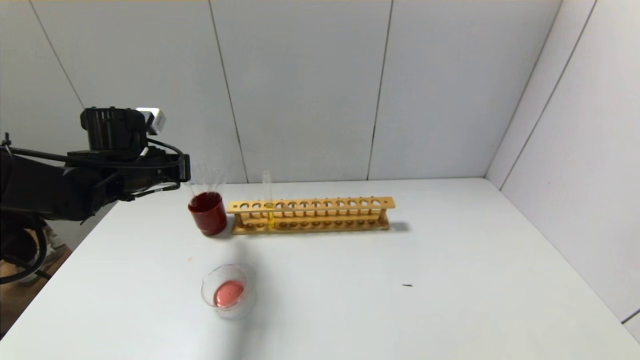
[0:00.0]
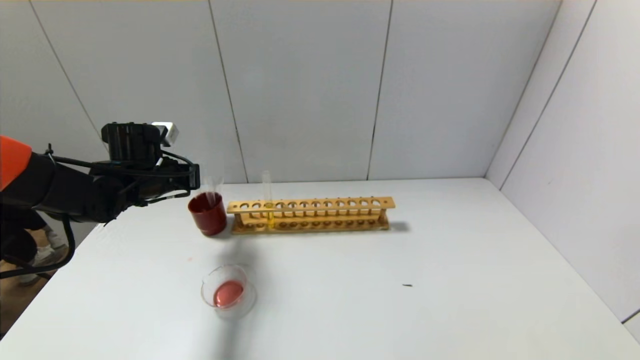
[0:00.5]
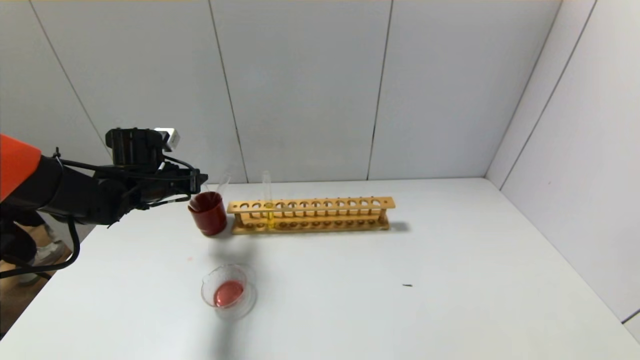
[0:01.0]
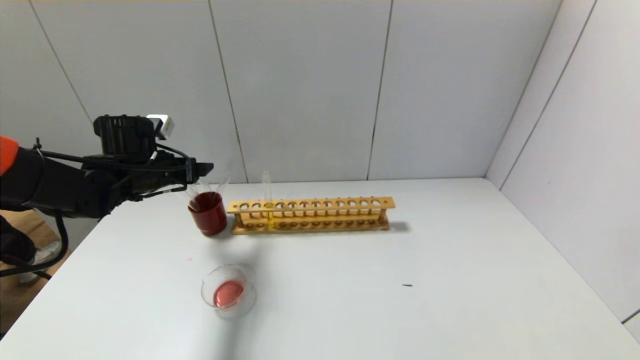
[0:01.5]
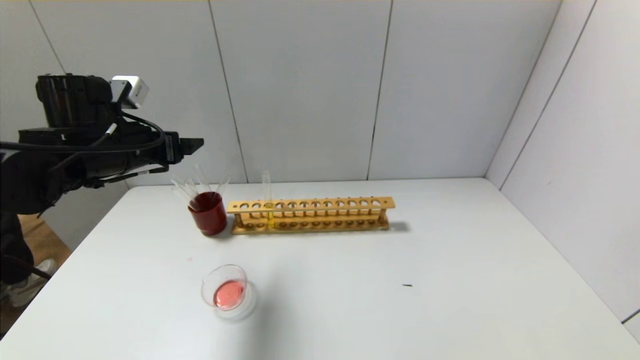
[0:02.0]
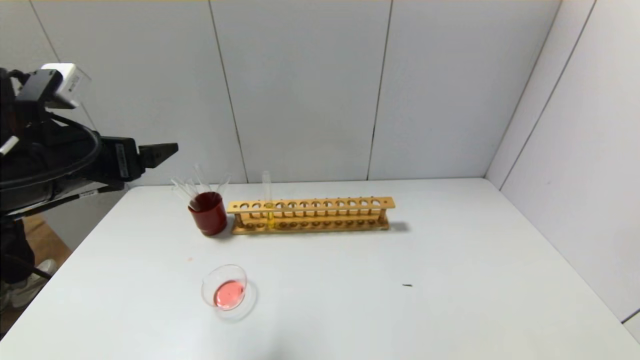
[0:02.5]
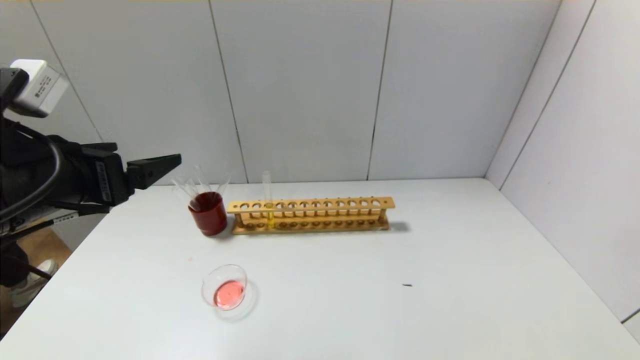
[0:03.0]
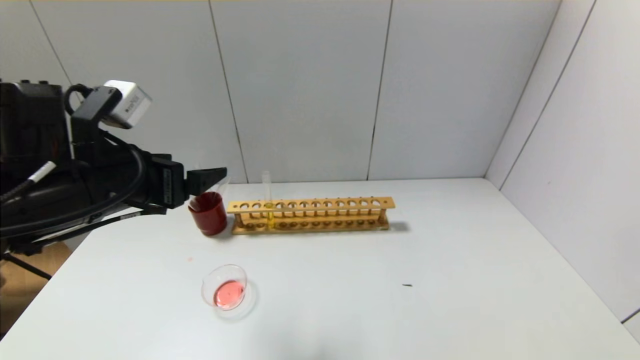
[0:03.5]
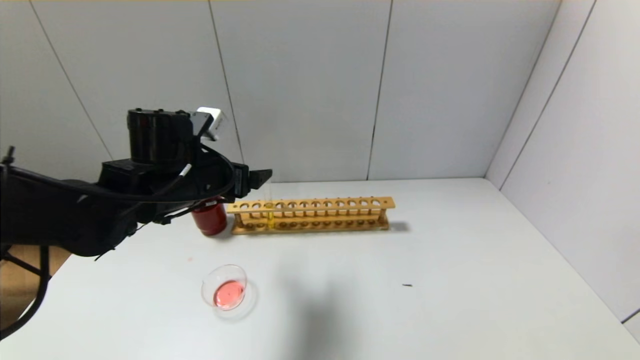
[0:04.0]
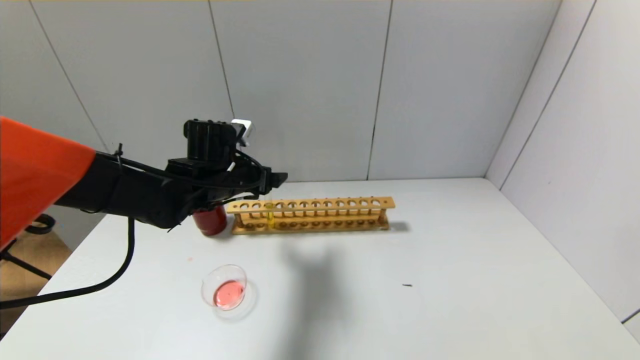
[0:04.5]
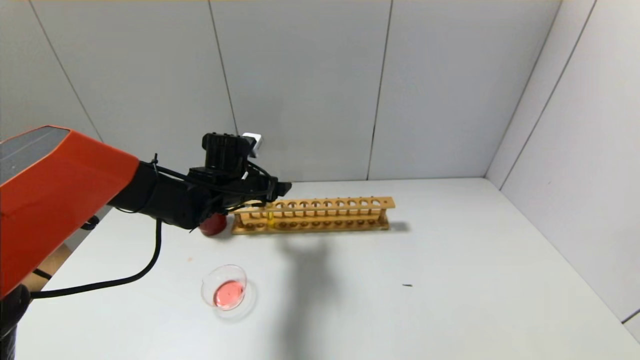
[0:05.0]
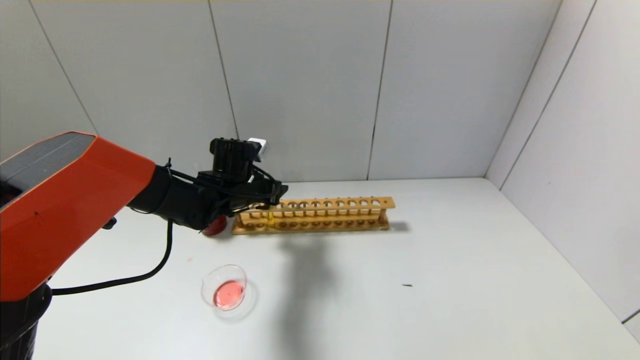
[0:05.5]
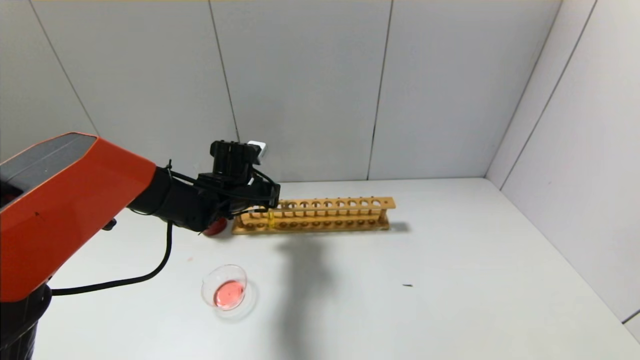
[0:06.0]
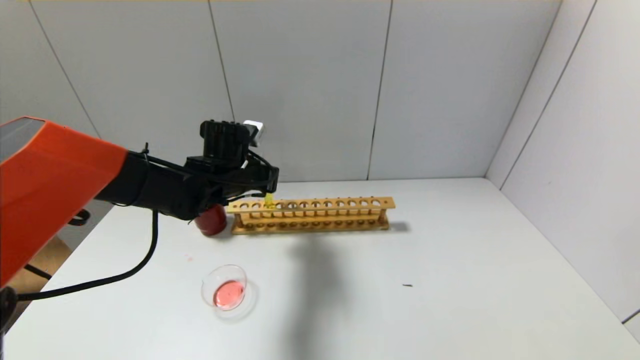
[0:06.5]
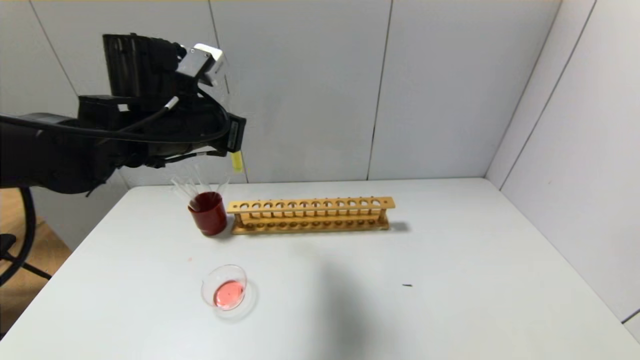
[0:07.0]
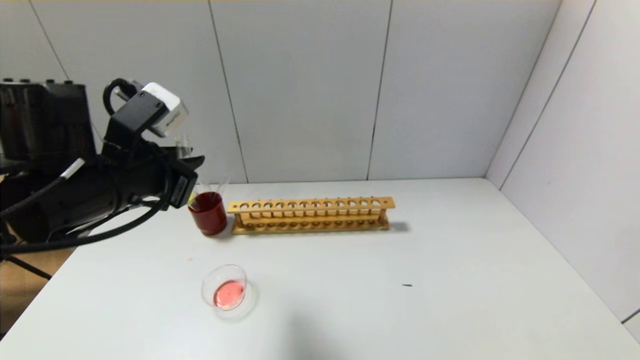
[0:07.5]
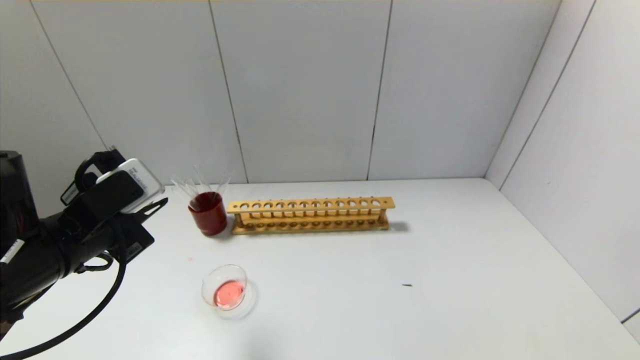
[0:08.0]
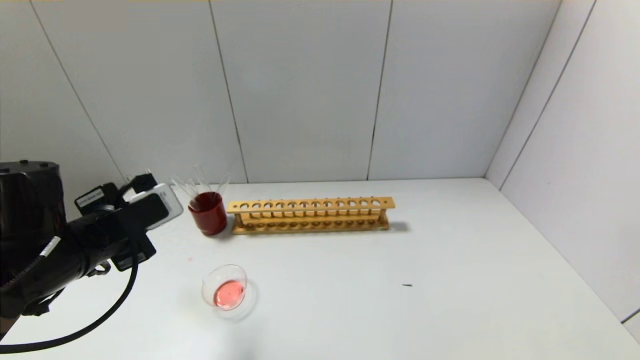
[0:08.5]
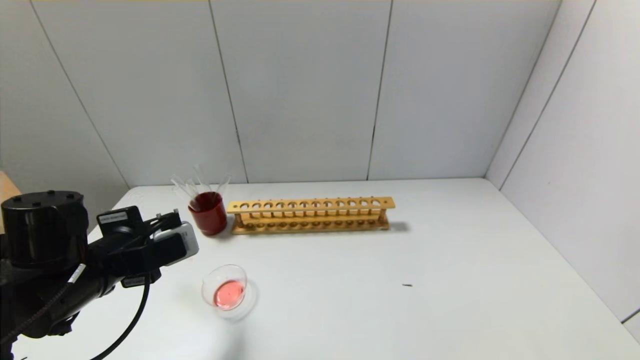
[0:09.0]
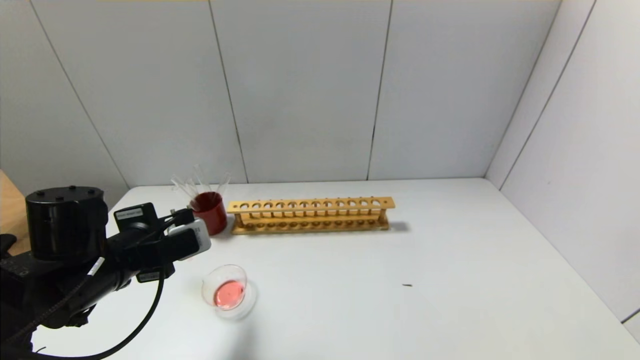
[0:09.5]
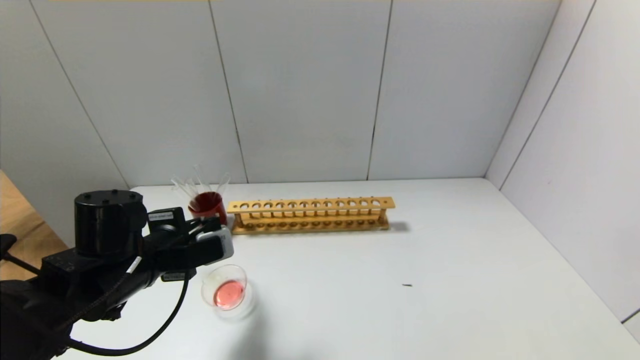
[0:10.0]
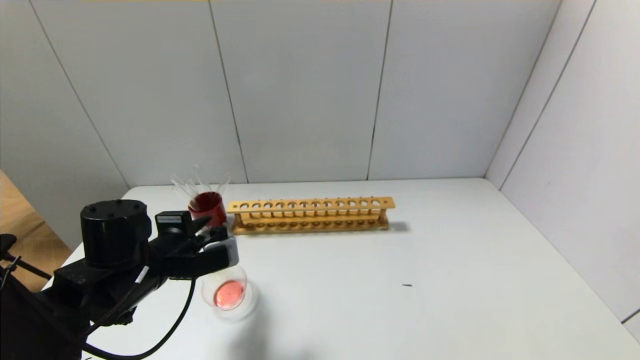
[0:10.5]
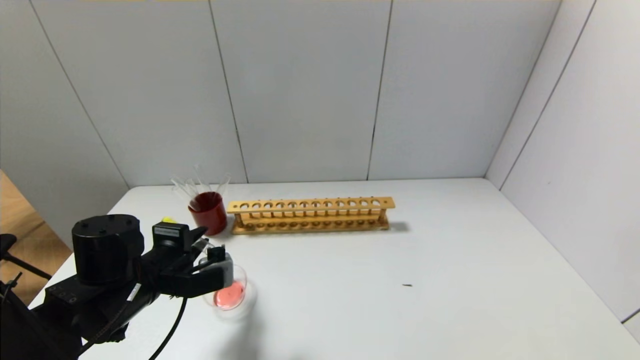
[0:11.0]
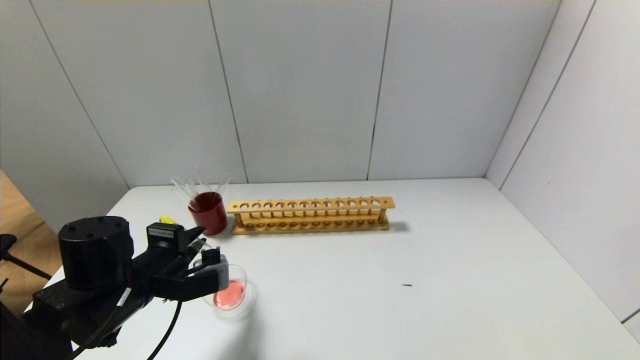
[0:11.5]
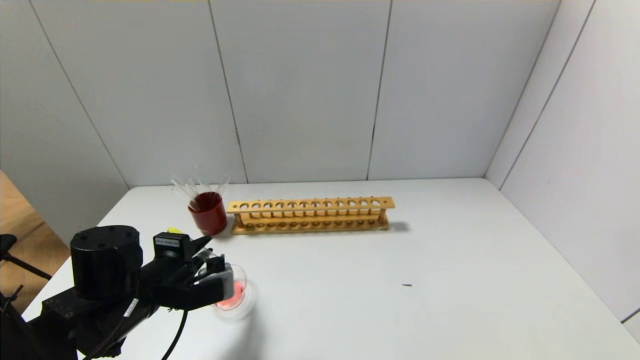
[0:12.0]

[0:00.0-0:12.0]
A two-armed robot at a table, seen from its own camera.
Step, 0:01.0 to 0:05.5: Grasp the yellow reagent with the left gripper.
0:00.0 to 0:02.0: The left gripper heads upward, covering roughly 5 cm, and opens up.
0:02.0 to 0:04.0: The left gripper goes some 10 cm to the right, and moves some 15 cm backward and comes back.
0:04.0 to 0:06.0: The left gripper moves forward and downward, roughly 10 cm, and closes its fingers.
0:06.0 to 0:08.0: The left gripper travels backward and to the left by about 25 cm.
0:08.0 to 0:10.0: The left gripper is displaced downward by some 5 cm.
0:10.0 to 0:12.0: The grippers make only small movements.

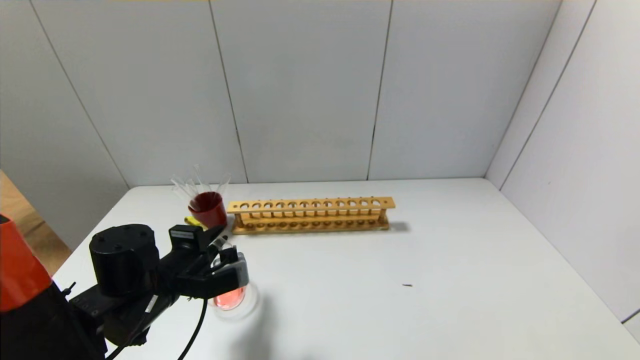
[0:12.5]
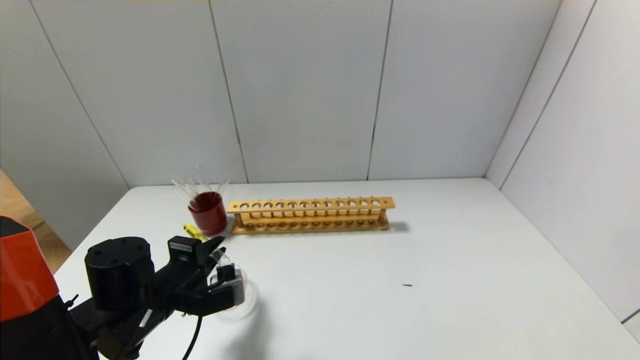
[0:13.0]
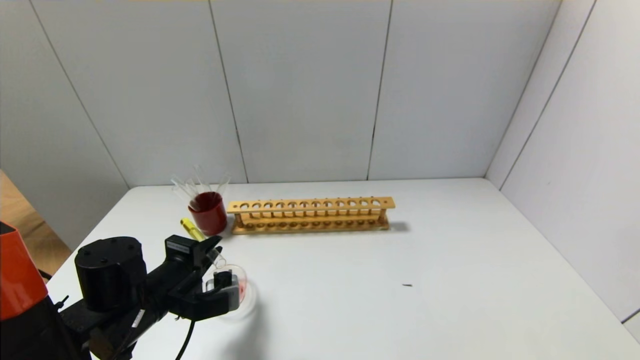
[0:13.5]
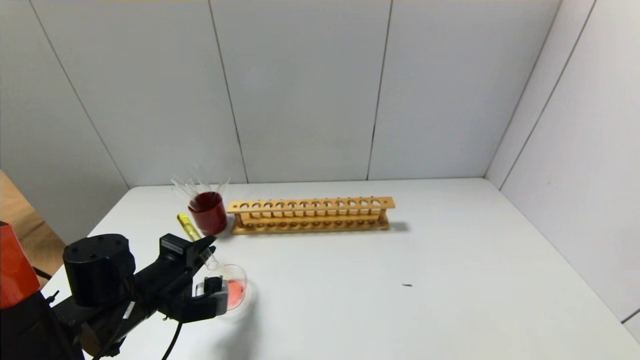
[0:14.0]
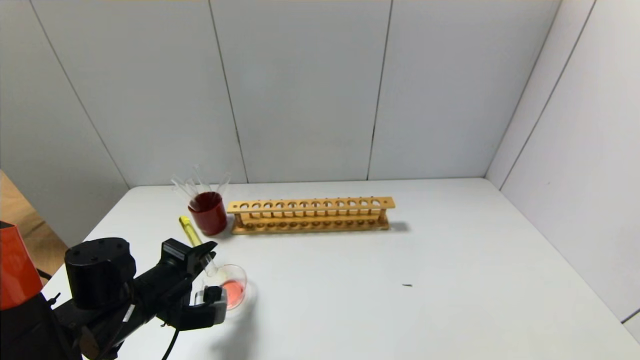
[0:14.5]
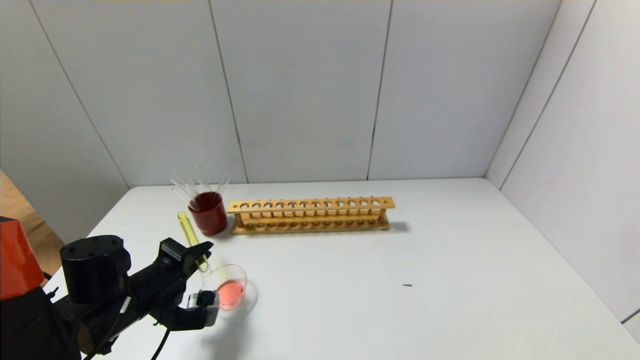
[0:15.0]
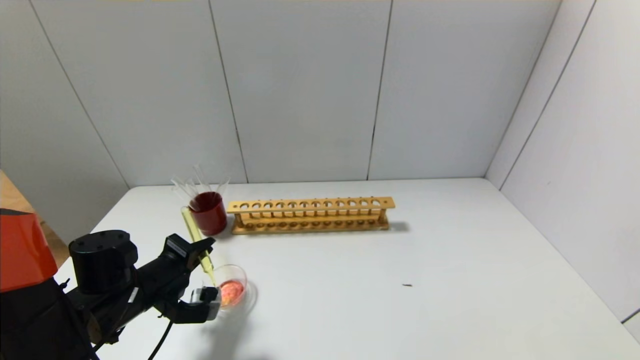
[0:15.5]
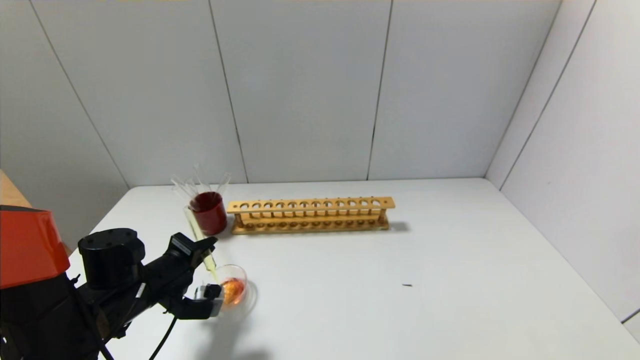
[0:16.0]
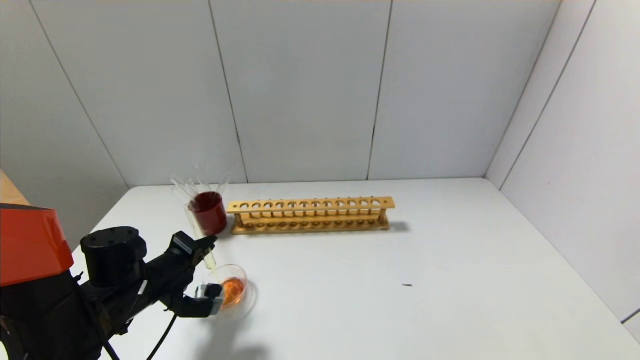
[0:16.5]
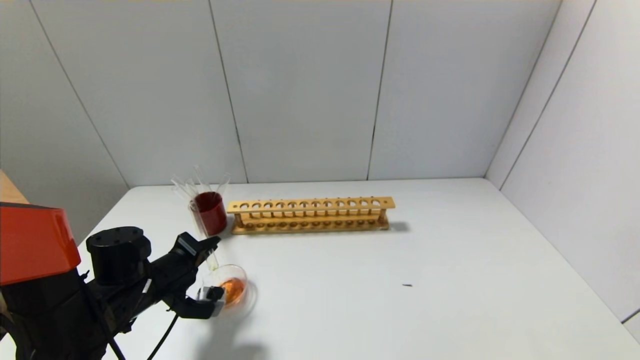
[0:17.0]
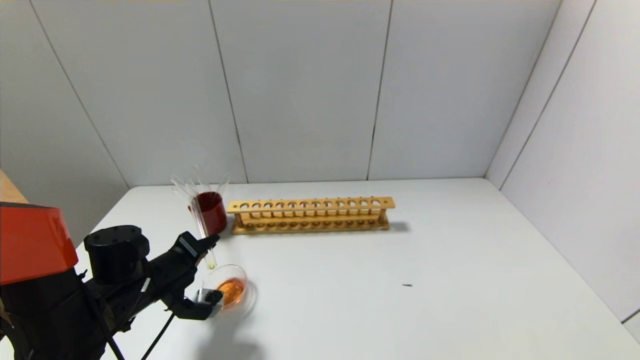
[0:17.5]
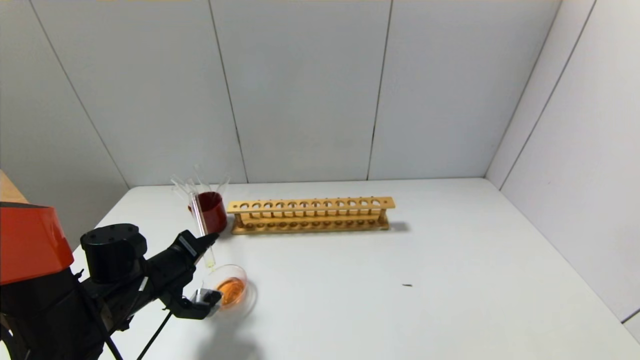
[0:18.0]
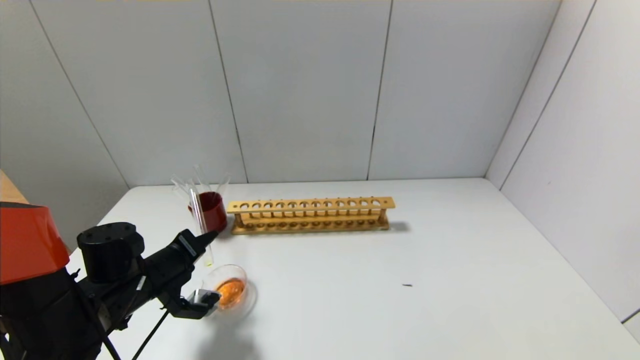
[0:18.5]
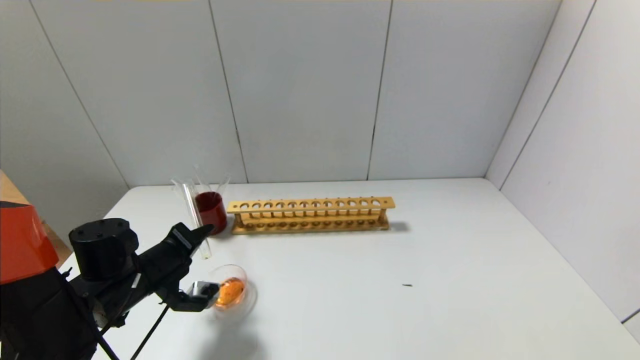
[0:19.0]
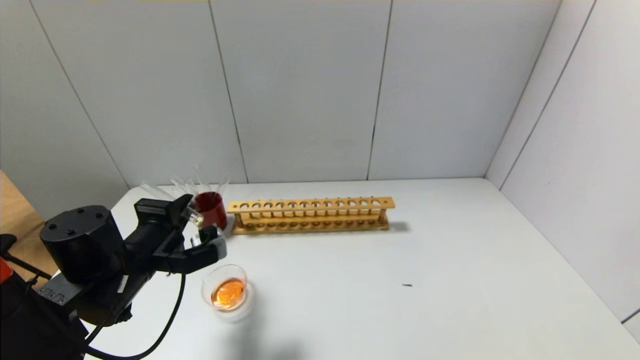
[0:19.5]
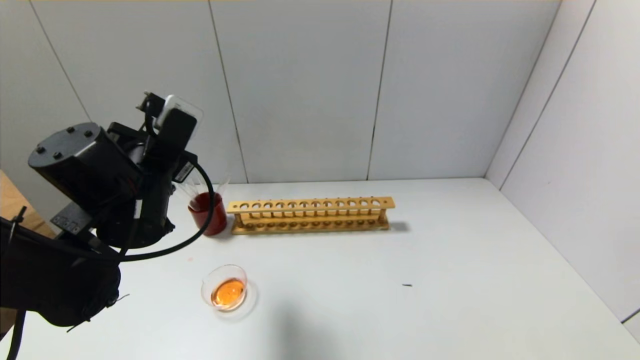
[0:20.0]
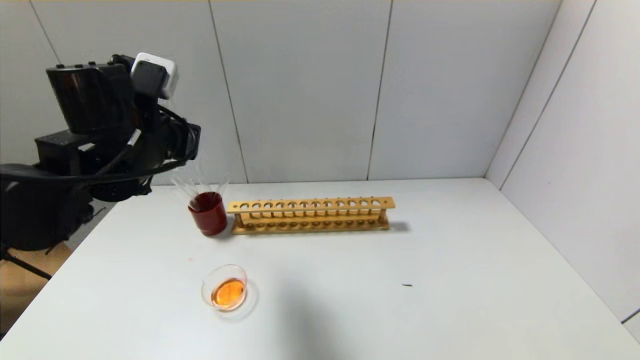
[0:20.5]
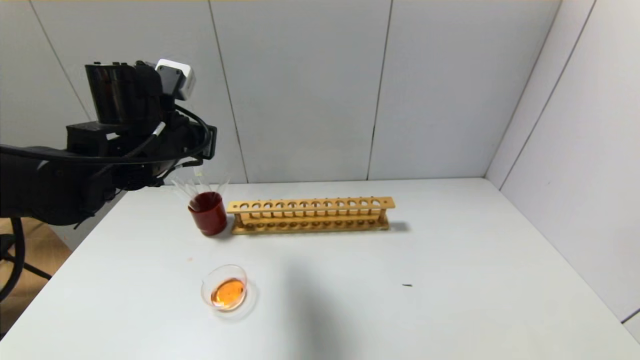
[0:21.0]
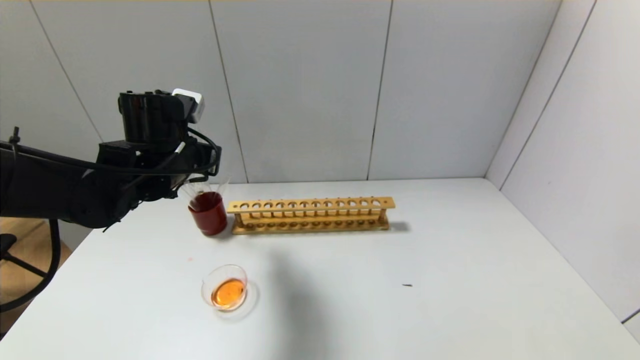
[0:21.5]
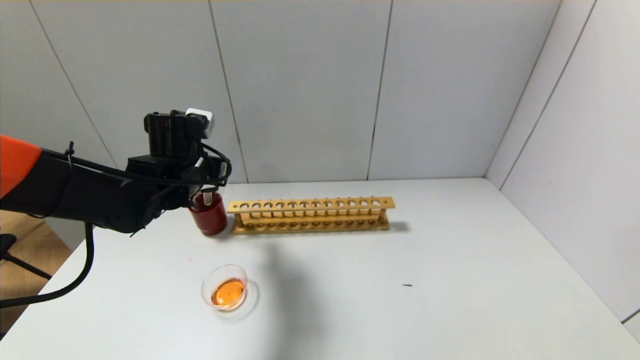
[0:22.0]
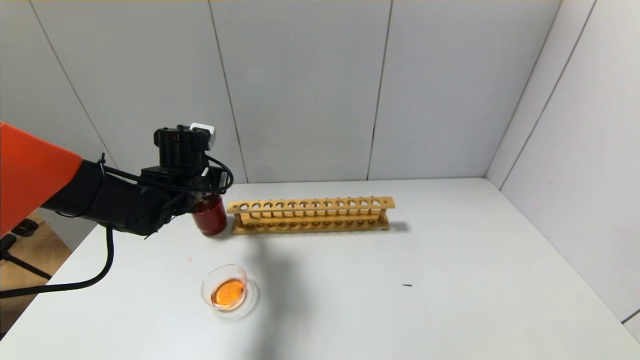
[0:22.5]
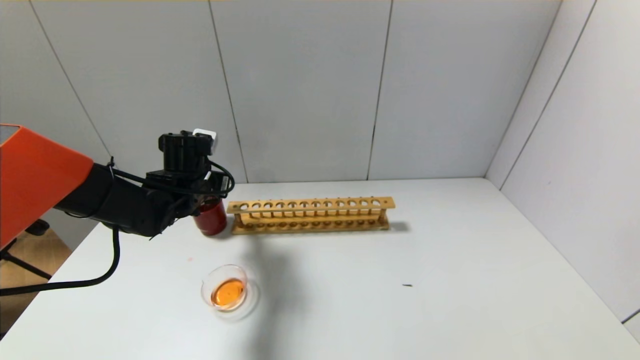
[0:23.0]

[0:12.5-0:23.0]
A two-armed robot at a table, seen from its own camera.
Step, 0:12.5 to 0:19.0: Pour the yellow reagent into the graduated cylinder with the left gripper.
0:12.5 to 0:14.5: The grippers move only a little.
0:14.5 to 0:16.5: The grippers move only a little.
0:16.5 to 0:19.0: The grippers make only small movements.
0:19.0 to 0:21.0: The left gripper shifts approximately 20 cm upward.
0:21.0 to 0:23.0: The left gripper travels downward and forward by about 15 cm.
